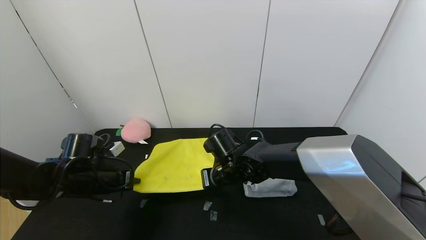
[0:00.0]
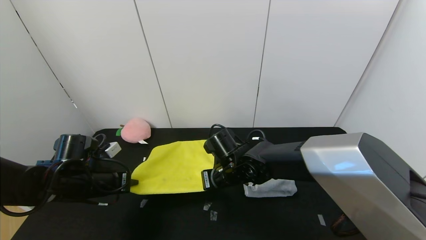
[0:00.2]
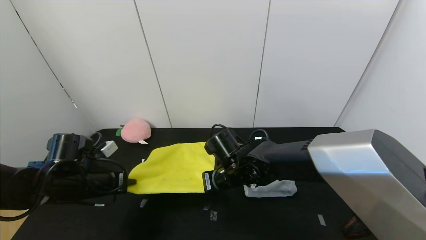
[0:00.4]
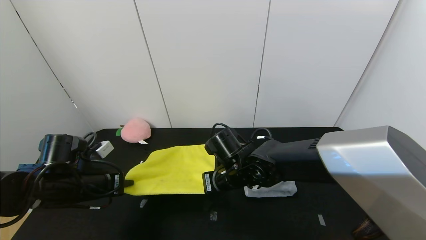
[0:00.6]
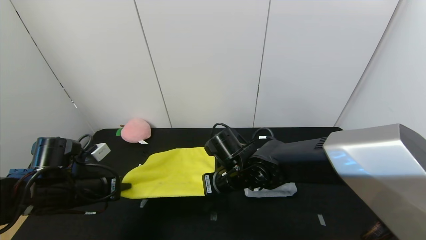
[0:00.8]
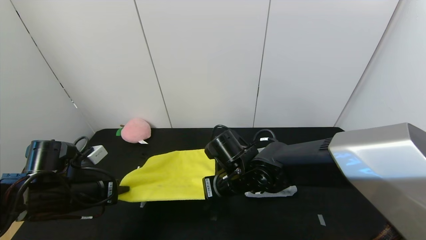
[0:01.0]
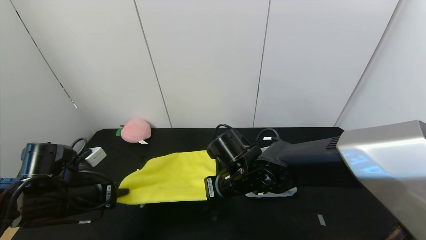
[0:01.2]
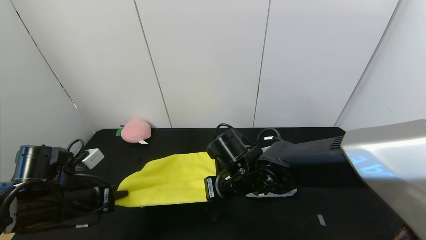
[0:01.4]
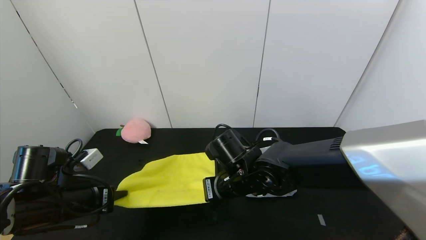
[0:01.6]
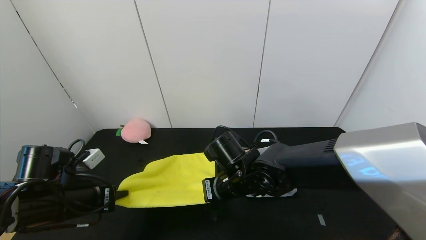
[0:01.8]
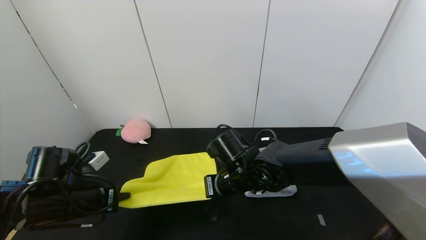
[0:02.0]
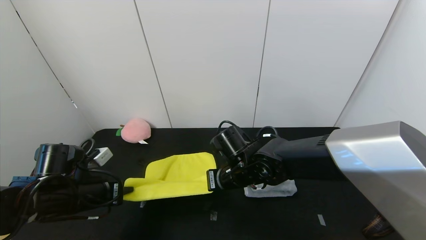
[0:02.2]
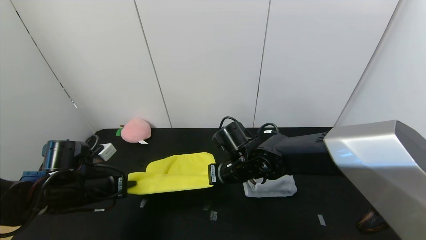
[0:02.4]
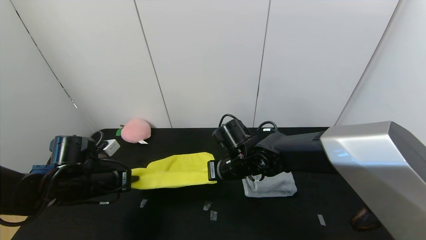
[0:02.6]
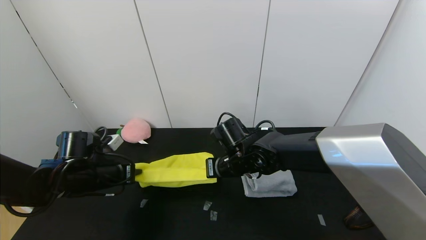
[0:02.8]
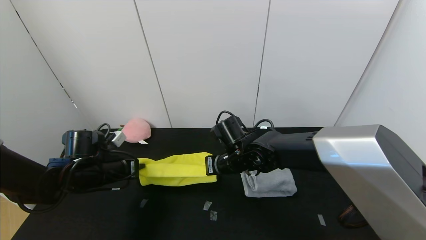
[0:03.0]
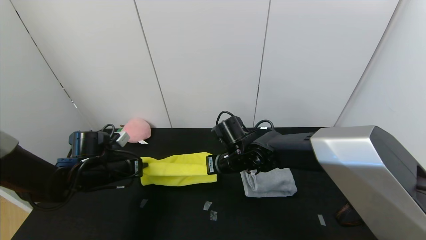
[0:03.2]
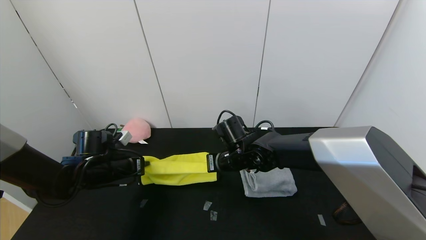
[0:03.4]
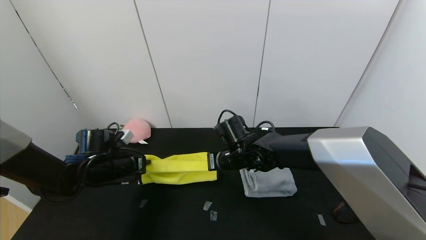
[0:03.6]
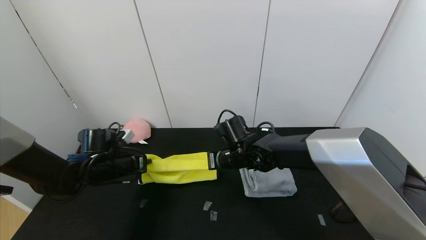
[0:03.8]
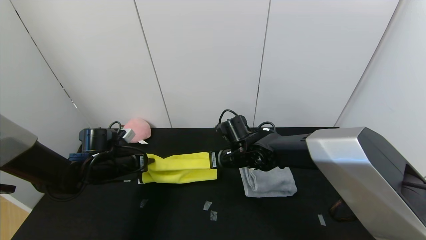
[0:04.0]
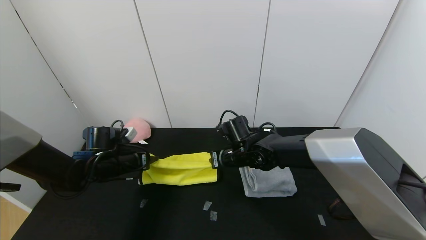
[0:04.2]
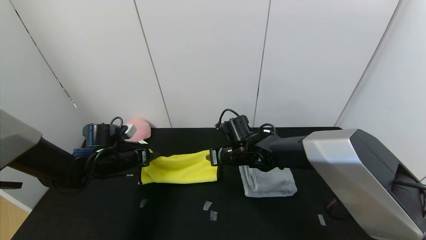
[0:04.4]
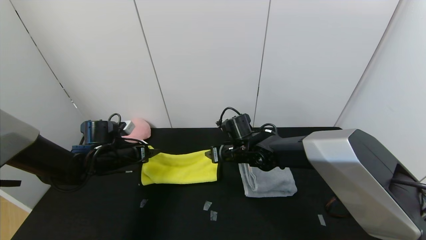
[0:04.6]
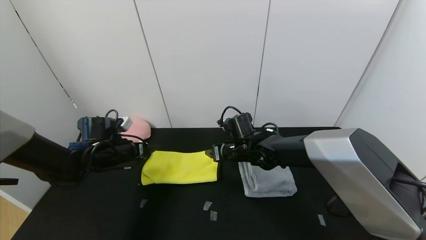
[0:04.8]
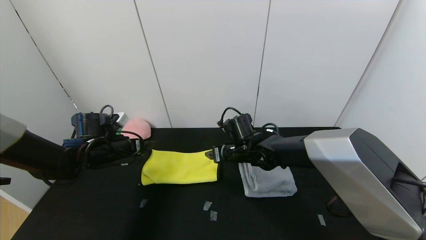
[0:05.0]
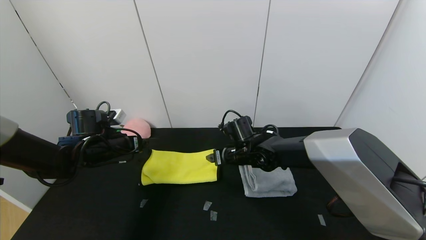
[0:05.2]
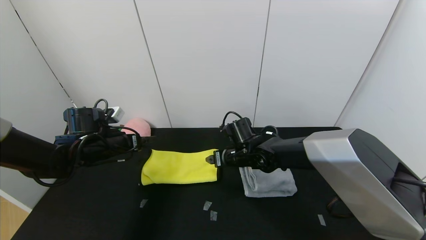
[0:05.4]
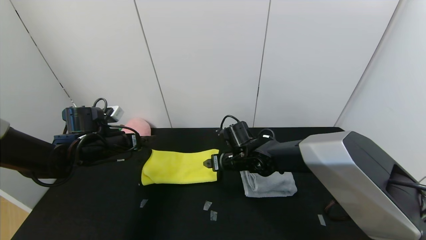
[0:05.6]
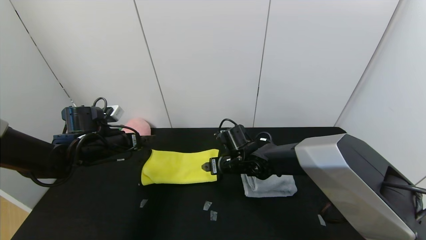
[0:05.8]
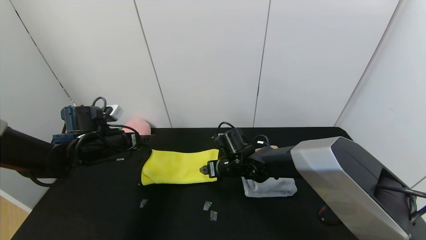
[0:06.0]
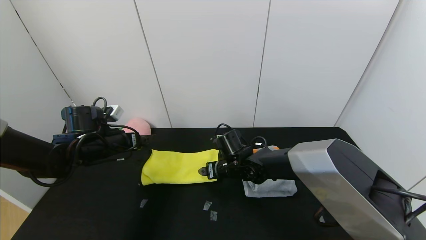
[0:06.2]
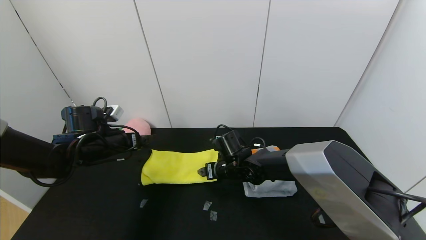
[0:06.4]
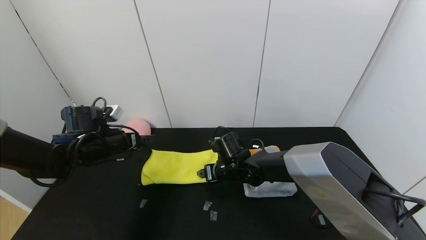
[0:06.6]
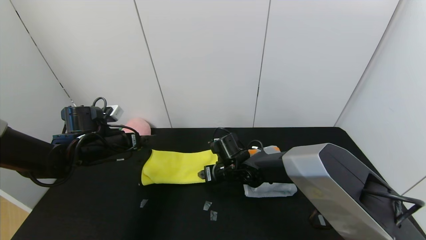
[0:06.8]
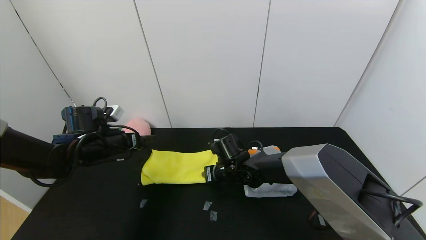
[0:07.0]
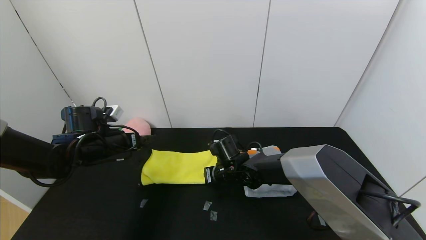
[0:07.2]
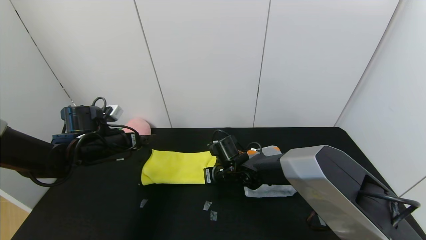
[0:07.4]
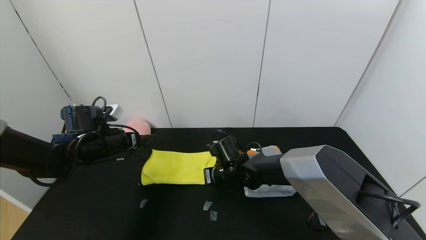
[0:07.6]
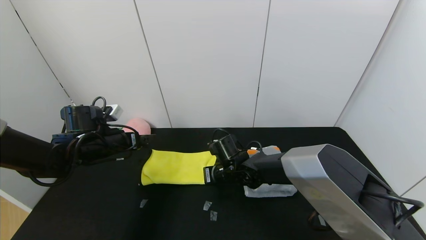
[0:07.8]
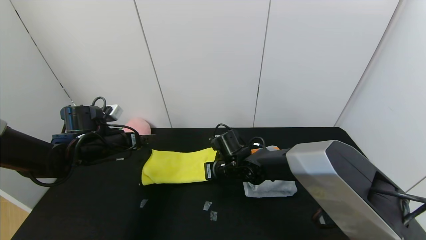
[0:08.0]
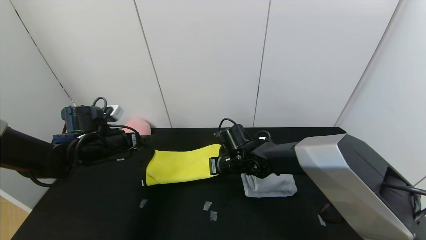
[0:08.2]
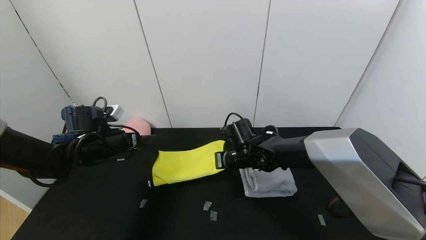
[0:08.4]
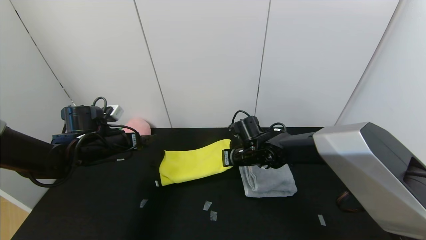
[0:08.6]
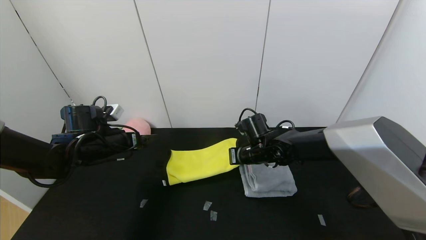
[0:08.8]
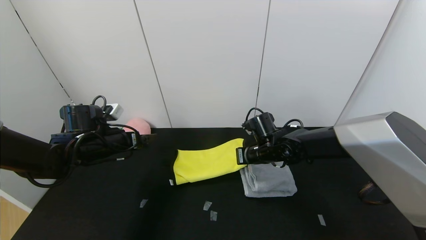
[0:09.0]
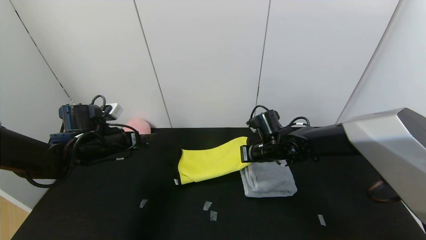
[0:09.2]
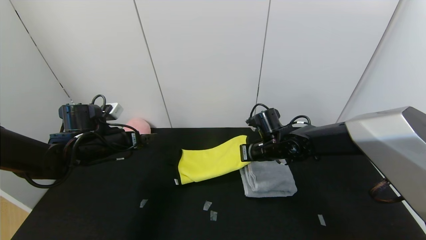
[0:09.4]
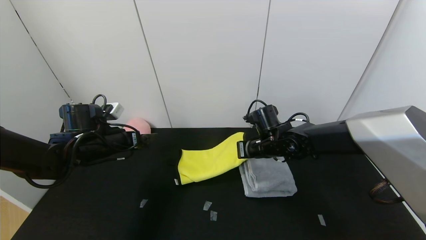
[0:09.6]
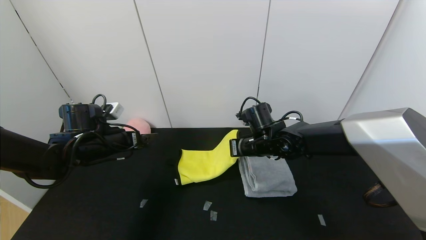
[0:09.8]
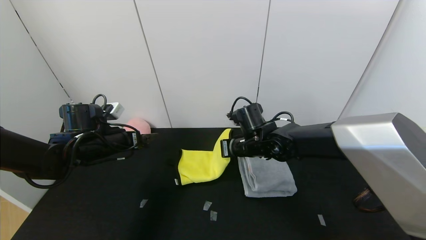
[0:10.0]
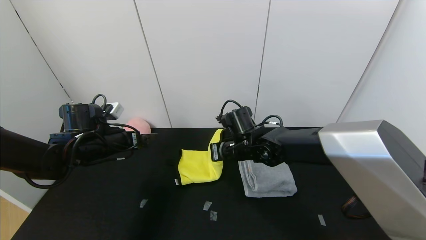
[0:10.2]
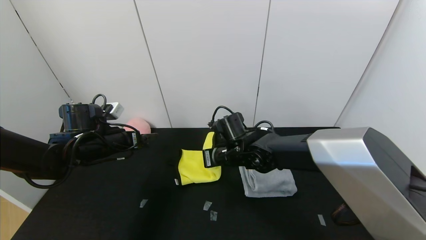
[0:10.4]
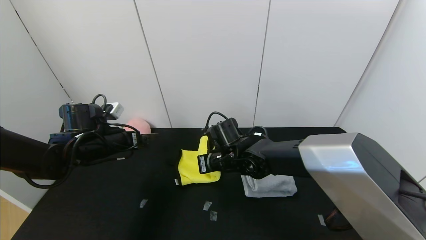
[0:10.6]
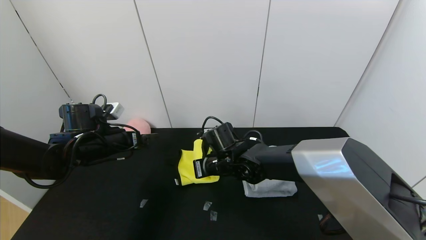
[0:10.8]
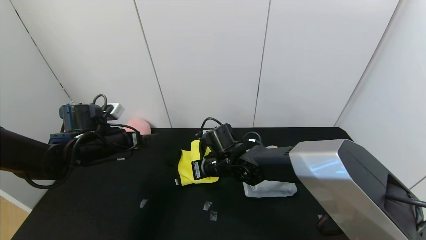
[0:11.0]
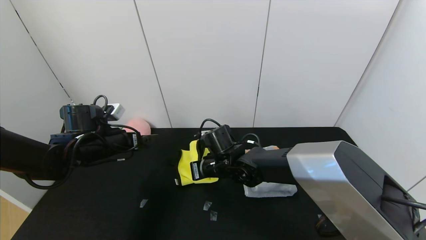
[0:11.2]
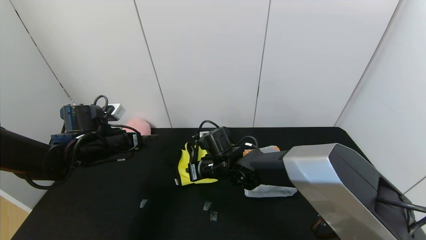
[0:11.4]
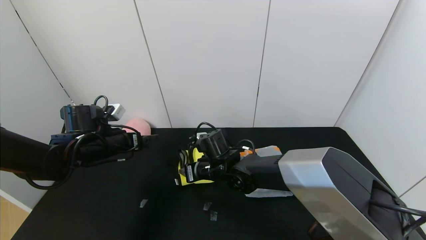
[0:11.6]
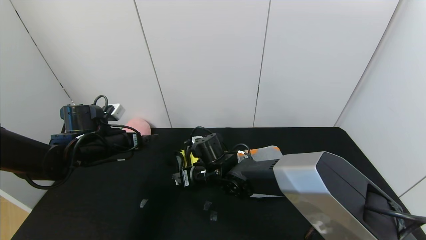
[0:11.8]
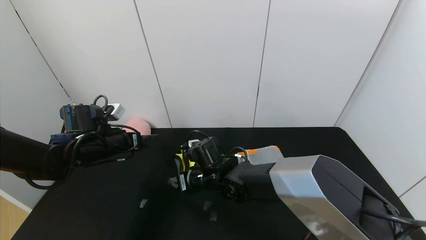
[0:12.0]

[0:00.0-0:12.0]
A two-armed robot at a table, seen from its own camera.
Task of the whole recording: Use the gripper to fold the yellow towel and grey towel in half twice,then put the yellow towel on the grey towel.
Step, 0:00.0 to 0:04.6: Fold the yellow towel upwards with the left gripper.
0:00.0 to 0:01.6: Both grippers travel together backward, roughly 5 cm.
0:01.6 to 0:03.0: The left gripper goes some 10 cm forward, while the right gripper heads forward, covering roughly 5 cm.
0:03.0 to 0:04.4: The left gripper changes place by roughly 5 cm, and opens. Meanwhile the right gripper opens.
0:04.4 to 0:06.0: The left gripper shifts some 5 cm upward. The right gripper opens up.
0:06.0 to 0:07.6: The right gripper closes its fingers.
0:07.6 to 0:09.0: The right gripper goes approximately 10 cm to the right and upward.
0:09.0 to 0:10.4: The right gripper heads to the left, covering about 10 cm.
0:10.4 to 0:12.0: The right gripper is displaced to the left by some 5 cm, and opens its fingers.

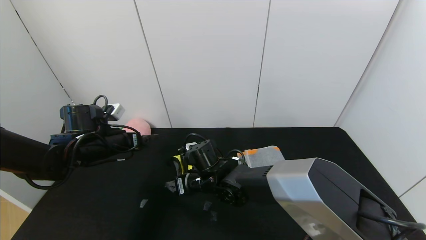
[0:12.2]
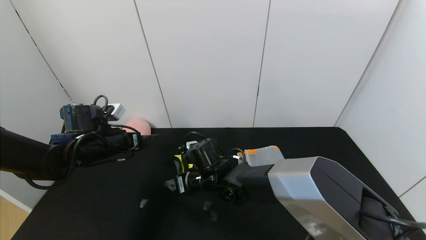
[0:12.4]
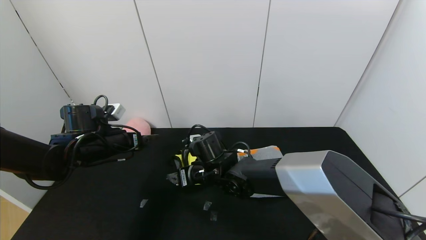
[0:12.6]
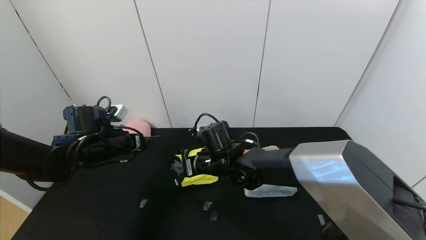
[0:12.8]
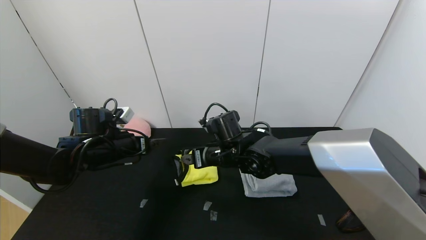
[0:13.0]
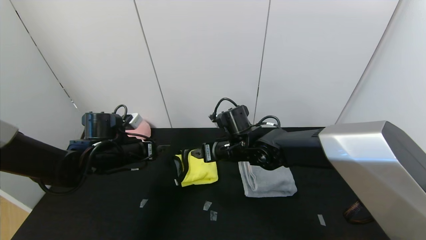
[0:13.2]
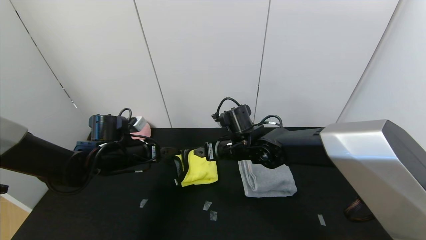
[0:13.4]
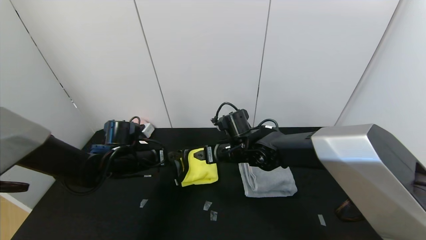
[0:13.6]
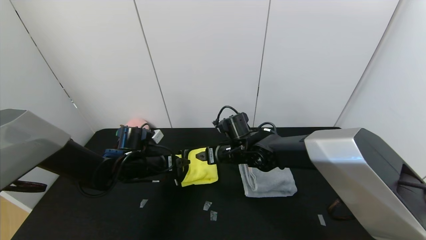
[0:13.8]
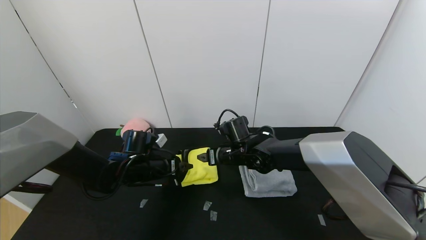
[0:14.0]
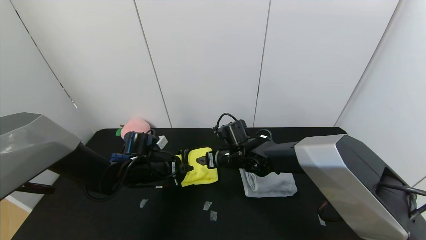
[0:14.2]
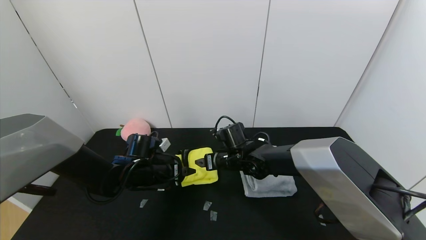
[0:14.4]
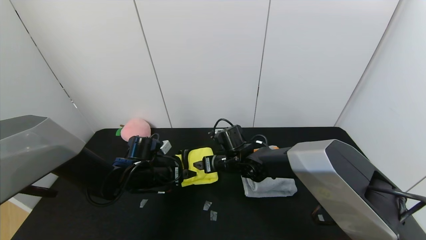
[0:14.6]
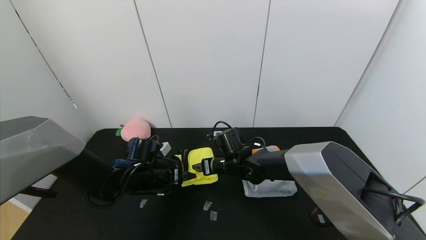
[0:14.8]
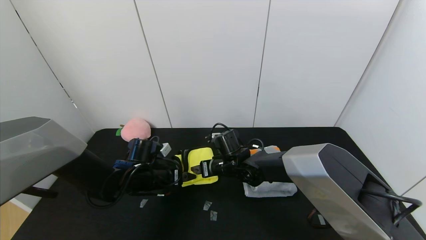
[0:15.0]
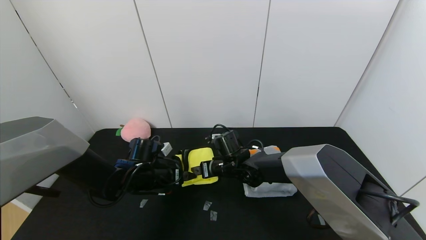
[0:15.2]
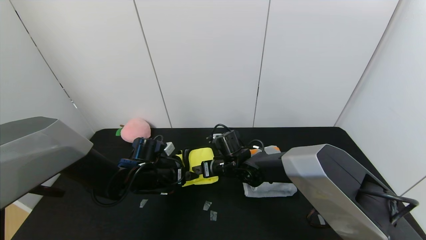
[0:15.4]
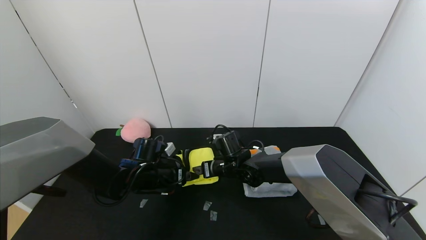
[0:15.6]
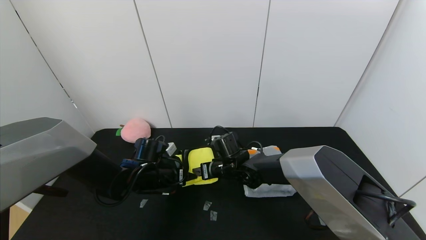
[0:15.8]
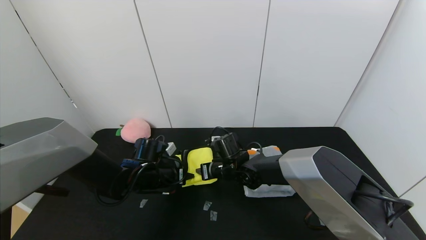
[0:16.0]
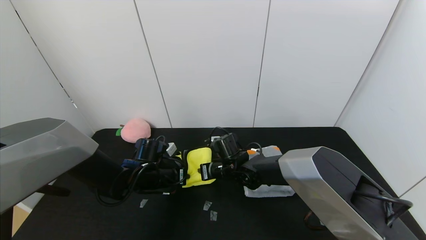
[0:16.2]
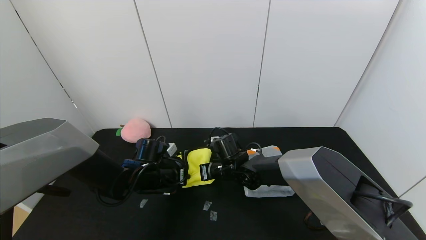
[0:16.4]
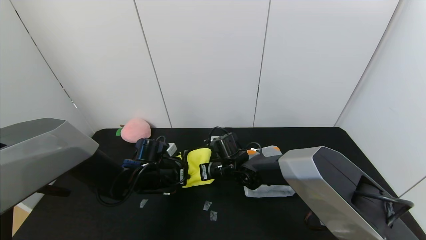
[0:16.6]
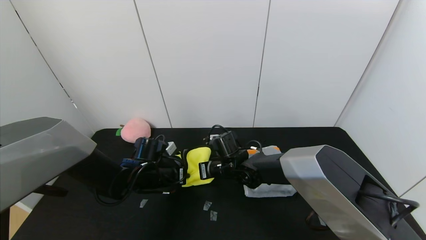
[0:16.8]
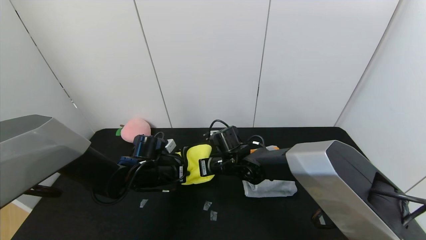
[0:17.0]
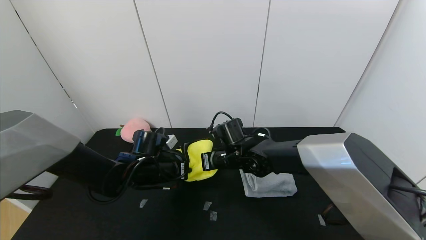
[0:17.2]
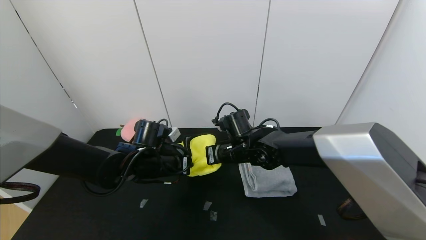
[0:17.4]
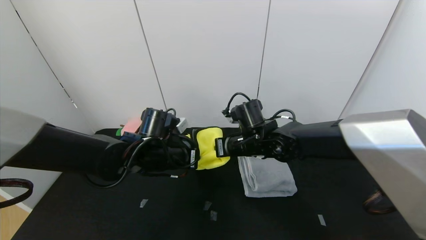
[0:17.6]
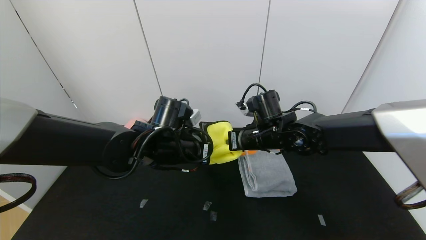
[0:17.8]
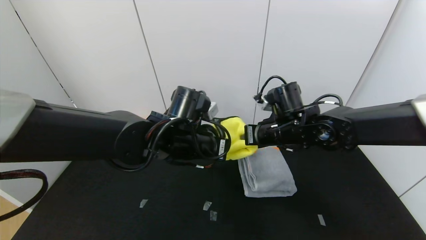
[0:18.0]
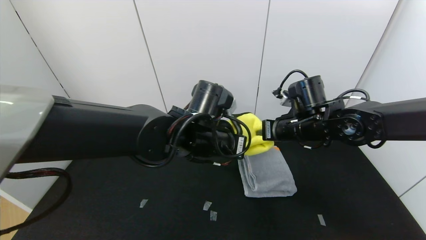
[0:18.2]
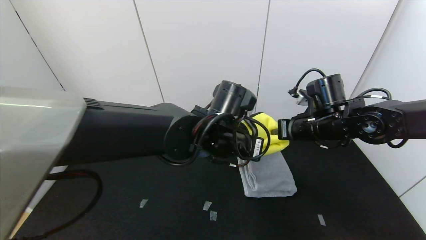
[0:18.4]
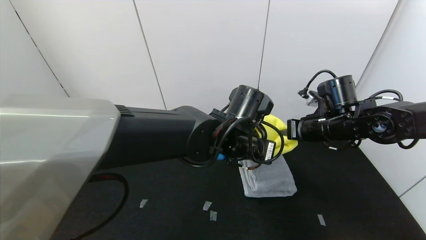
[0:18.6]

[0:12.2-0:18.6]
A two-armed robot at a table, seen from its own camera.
Task of the whole recording: Use the gripper to fold the yellow towel and grey towel in half twice,then put the yellow towel on the grey towel.
0:12.2 to 0:13.8: The right gripper shifts some 10 cm to the right and forward, while the left gripper heads to the right and downward, covering some 10 cm.
0:13.8 to 0:15.4: The right gripper is displaced downward by approximately 5 cm.
0:15.4 to 0:17.0: The right gripper closes; the left gripper closes its fingers.
0:17.0 to 0:18.6: Both grippers travel together to the right and upward, about 25 cm.
